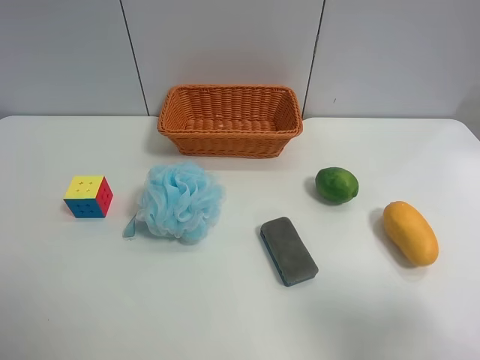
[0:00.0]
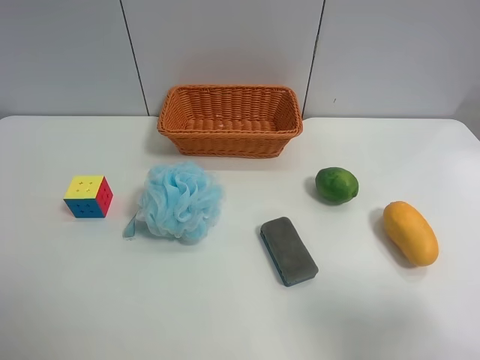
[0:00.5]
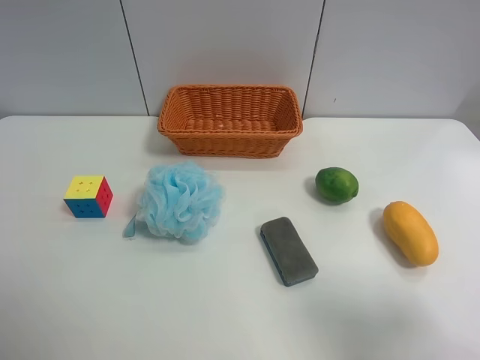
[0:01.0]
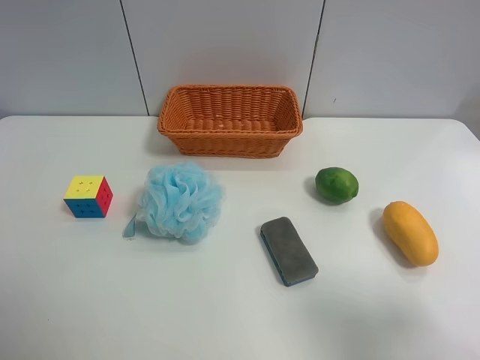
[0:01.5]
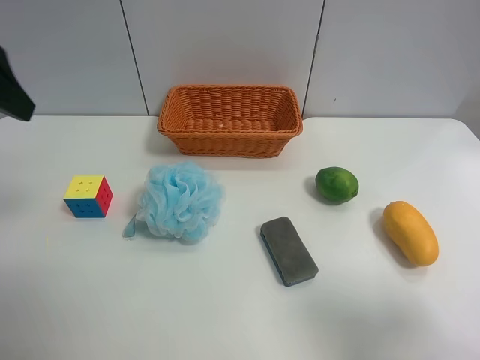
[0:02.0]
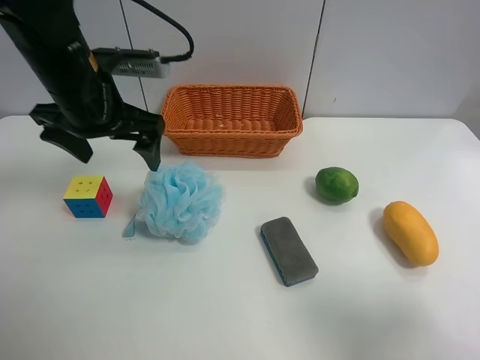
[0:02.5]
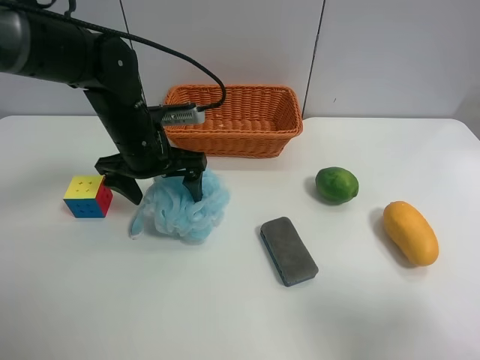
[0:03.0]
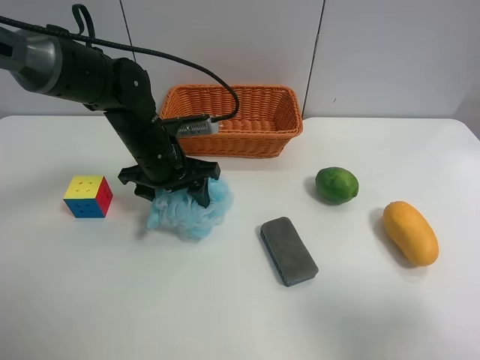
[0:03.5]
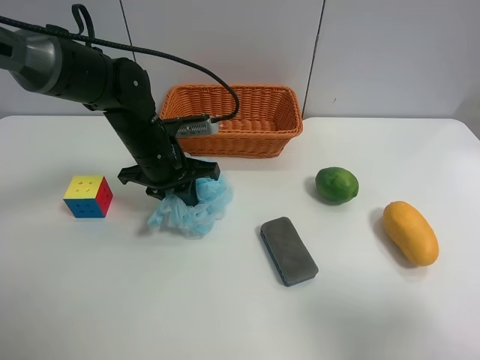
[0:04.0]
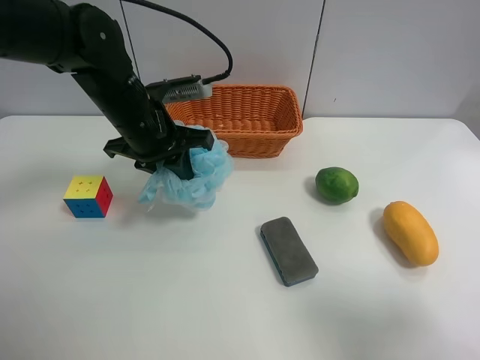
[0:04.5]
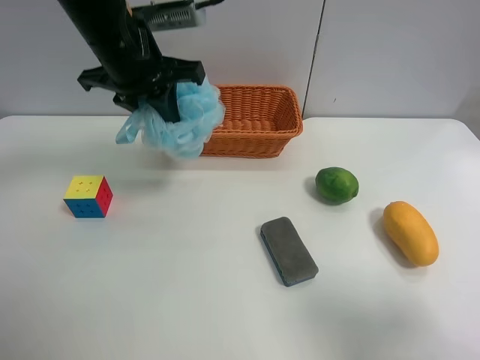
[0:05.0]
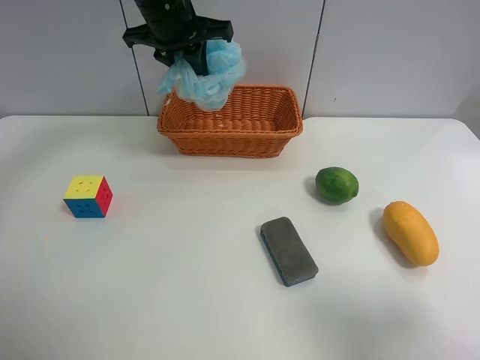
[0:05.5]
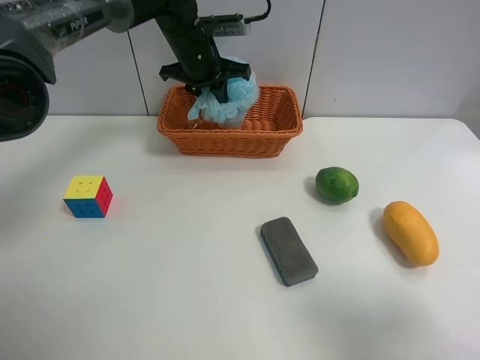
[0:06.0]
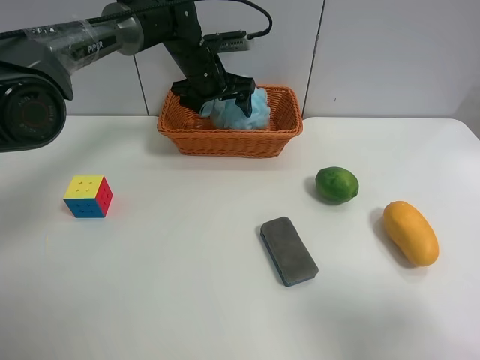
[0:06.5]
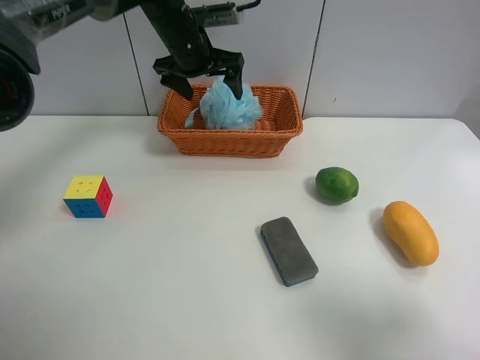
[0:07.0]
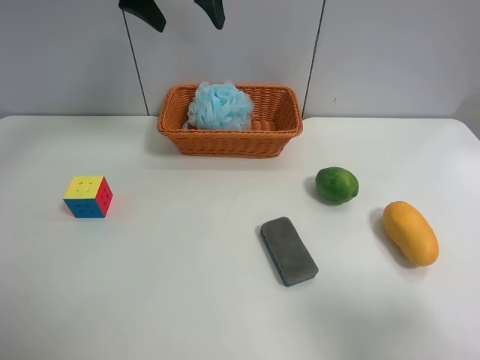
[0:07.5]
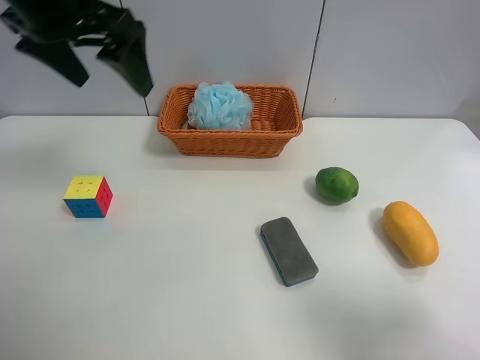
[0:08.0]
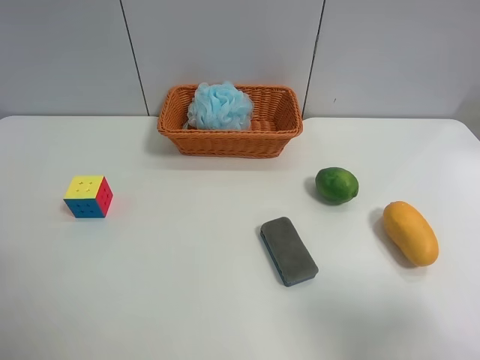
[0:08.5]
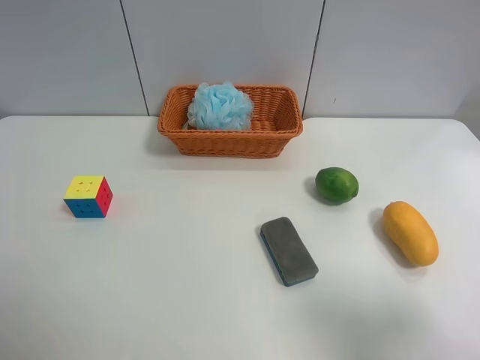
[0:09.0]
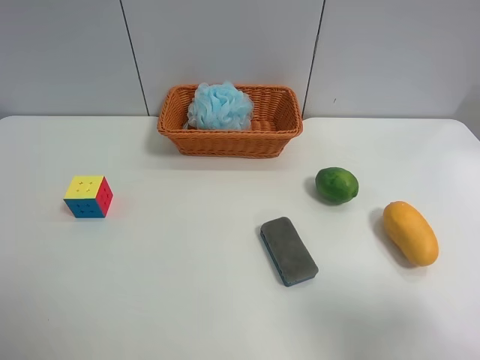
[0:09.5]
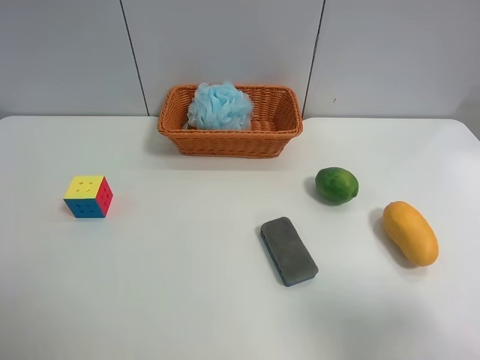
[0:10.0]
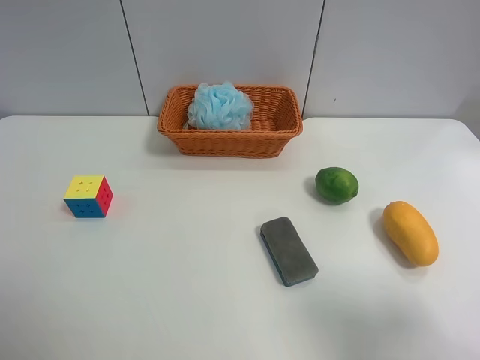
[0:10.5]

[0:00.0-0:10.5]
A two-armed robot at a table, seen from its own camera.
Task of the whole recording: use the left gripper to grab items from the table and place them in the basket.
Step, 0:00.0 to 0:03.0: Grasp the Shower puff with the left gripper.
Step, 0:03.5 to 0:06.5: Place the Shower puff into the basket with the left gripper.
0:00.0 to 0:02.0: The left gripper is displaced forward by approximately 20 cm.
0:02.0 to 0:04.0: The left gripper travels downward, to the right and forward by approximately 30 cm, and closes.
0:04.0 to 0:06.5: The left gripper goes about 15 cm forward, and opens.
0:06.5 to 0:08.5: The left gripper shifts approximately 40 cm backward and to the left.
